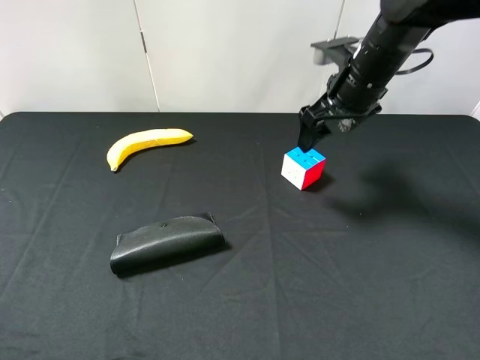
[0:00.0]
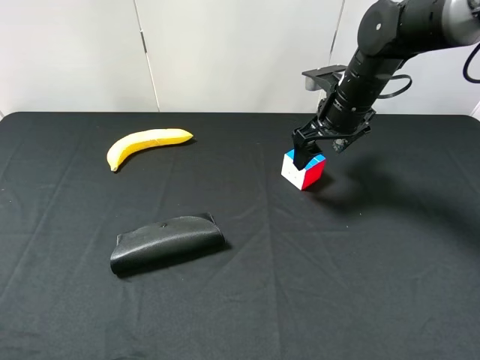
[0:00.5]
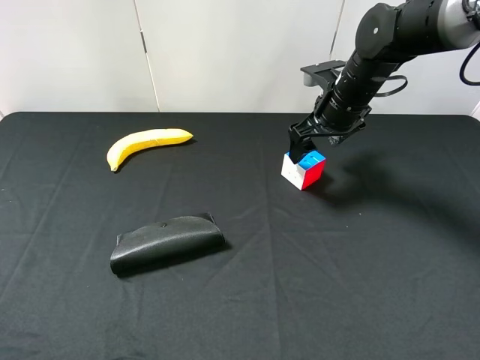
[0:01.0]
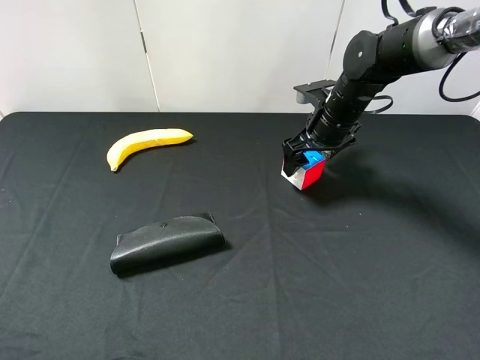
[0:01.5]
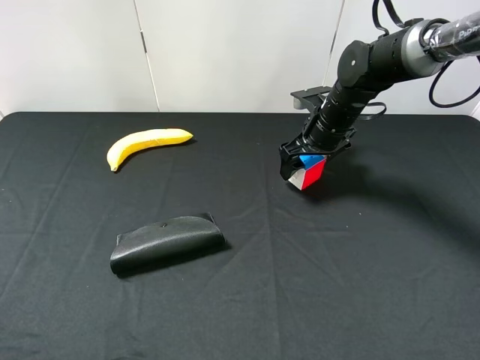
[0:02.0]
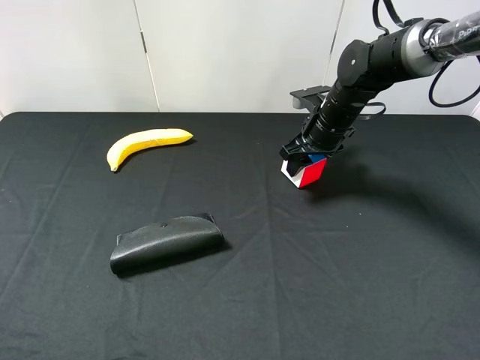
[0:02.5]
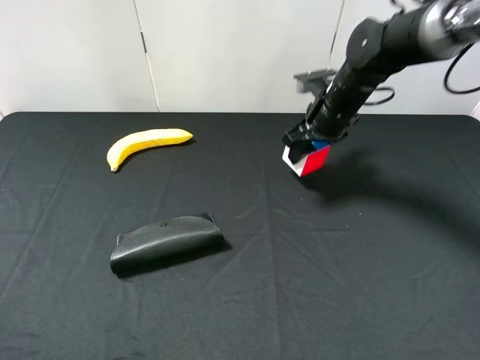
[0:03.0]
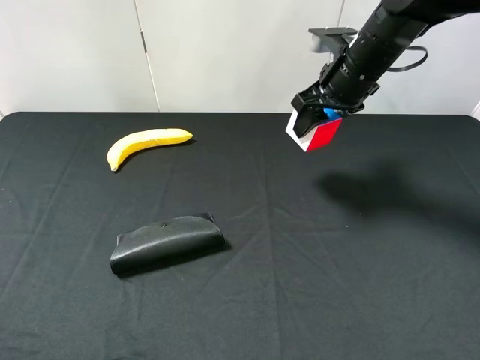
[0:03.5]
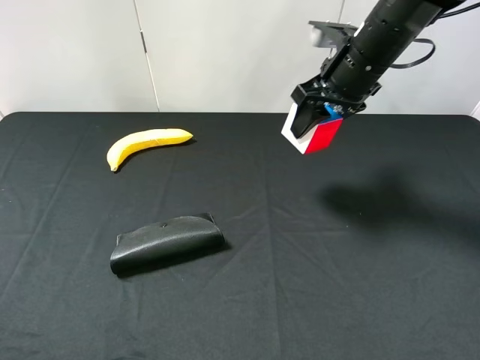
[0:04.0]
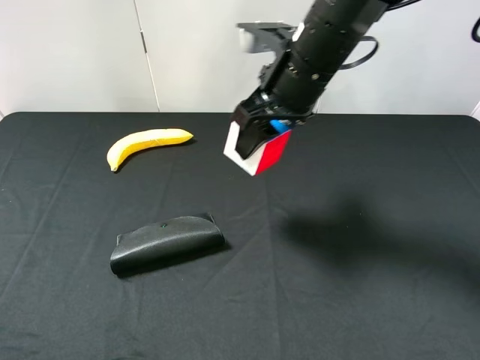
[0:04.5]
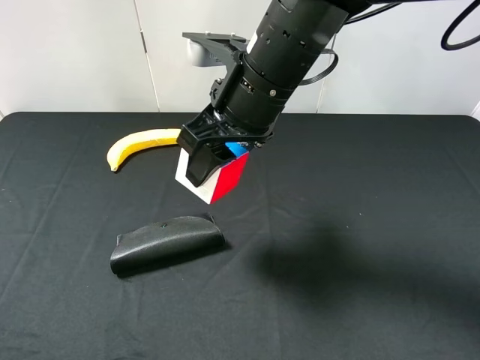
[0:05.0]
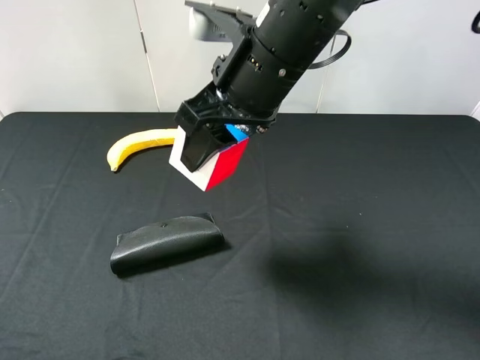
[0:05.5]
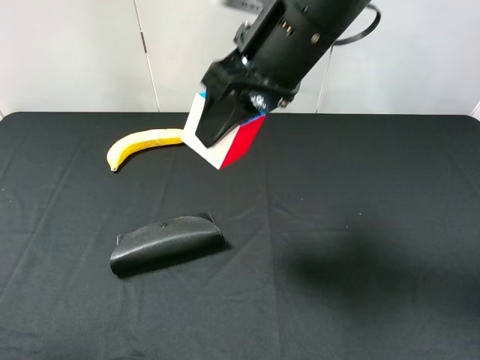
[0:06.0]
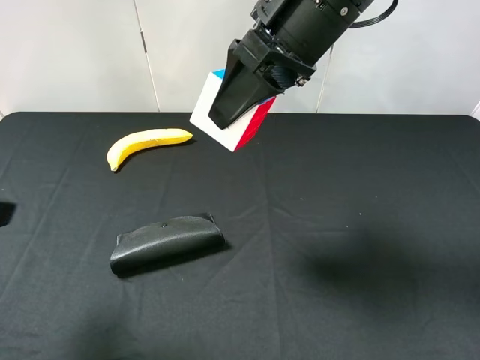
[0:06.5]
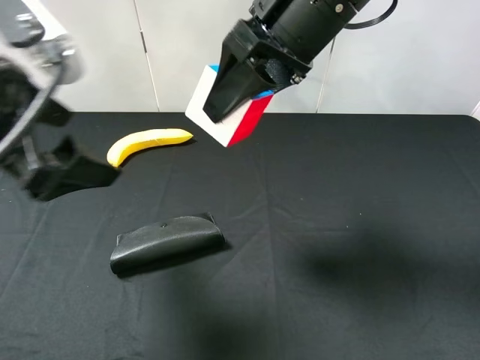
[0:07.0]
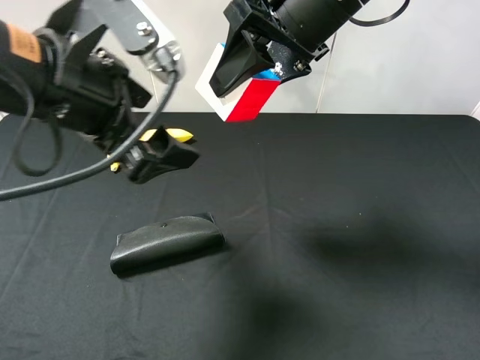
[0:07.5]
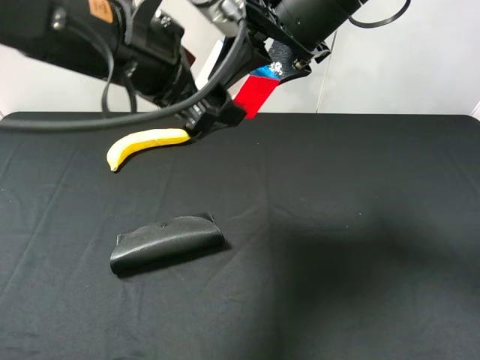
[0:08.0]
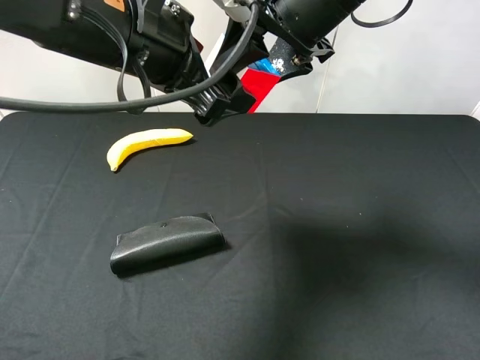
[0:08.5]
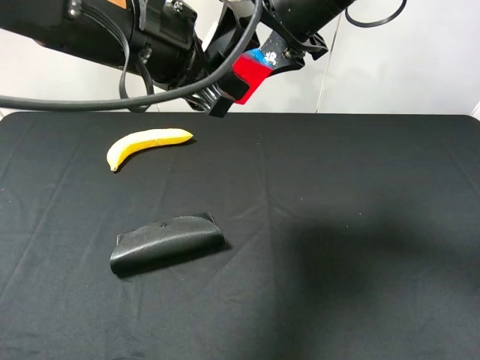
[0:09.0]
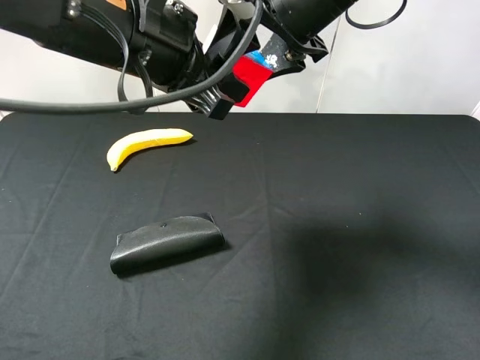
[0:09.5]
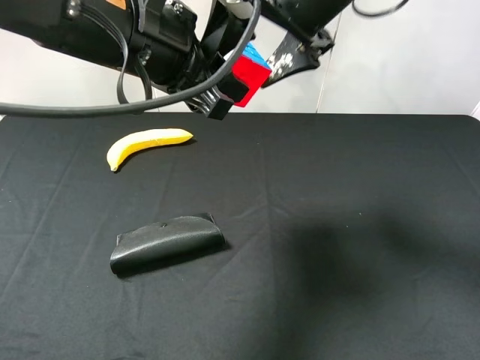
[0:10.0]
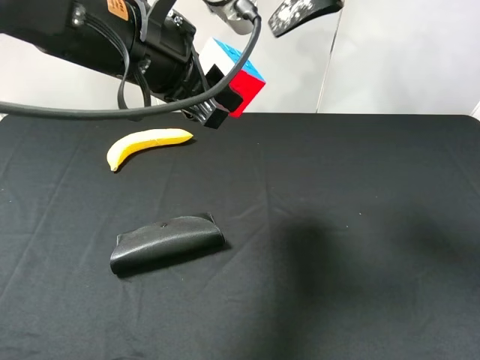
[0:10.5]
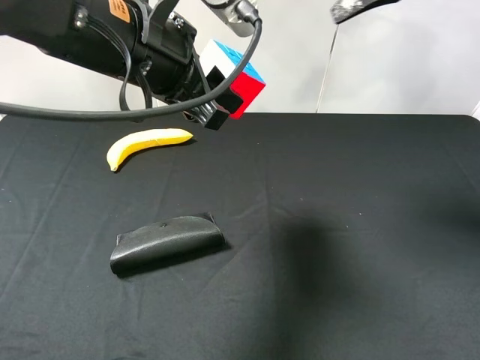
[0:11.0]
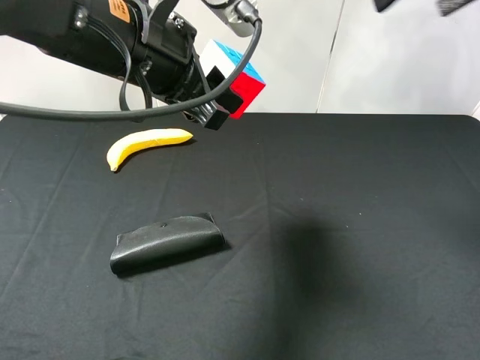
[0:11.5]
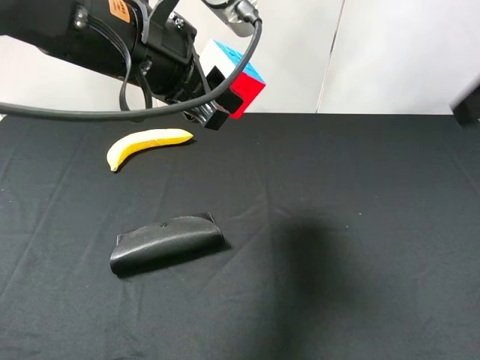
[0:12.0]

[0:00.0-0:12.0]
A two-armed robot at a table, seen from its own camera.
Task of the whole recording: use the right gripper to pick up the item and transfer it from the right gripper to the left gripper.
Step, 0:00.0 to 0:02.5: Use the right gripper to grab the Rubik's Cube on the right side of the table.
Step, 0:03.0 to 0:10.5: Pass the Rubik's Cube to the left gripper.
0:00.0 to 0:02.0: The right gripper shifts some 10 cm downward.
0:02.0 to 0:04.0: The right gripper is displaced upward and backward by about 15 cm, and closes up.
0:04.0 to 0:06.0: The right gripper goes roughly 15 cm backward, to the left and upward, while the left gripper travels forward by approximately 5 cm.
0:06.0 to 0:08.0: The left gripper shifts some 25 cm to the right and forward.
0:08.0 to 0:10.0: The right gripper opens, while the left gripper closes up.
0:10.0 to 0:12.0: The right gripper goes roughly 20 cm to the right and backward.

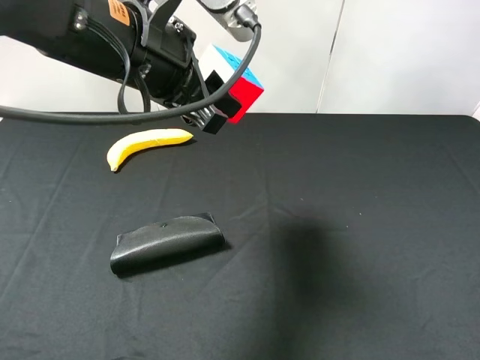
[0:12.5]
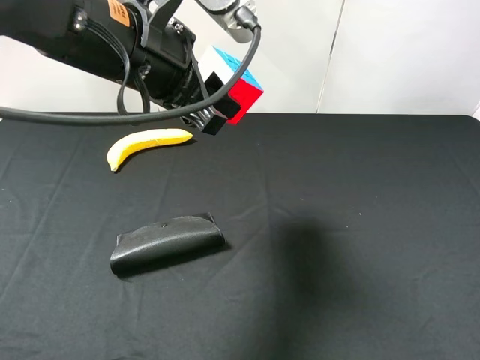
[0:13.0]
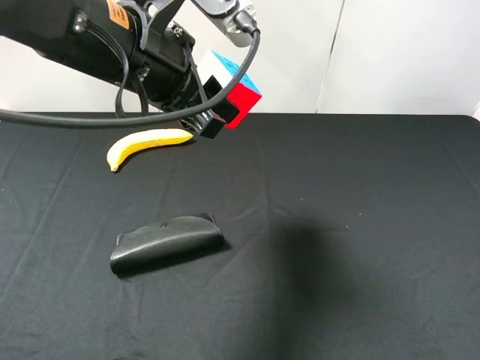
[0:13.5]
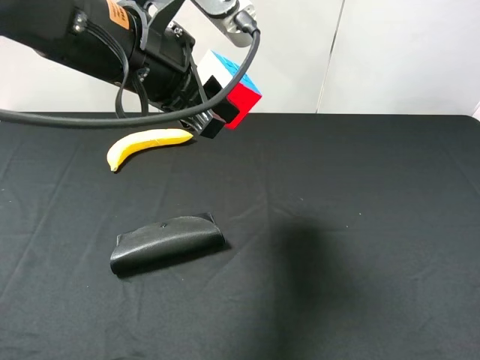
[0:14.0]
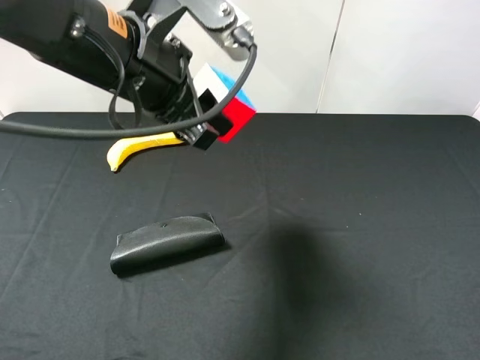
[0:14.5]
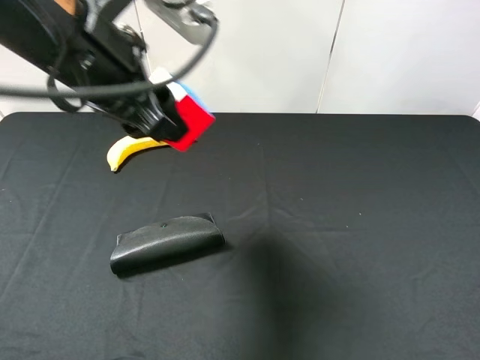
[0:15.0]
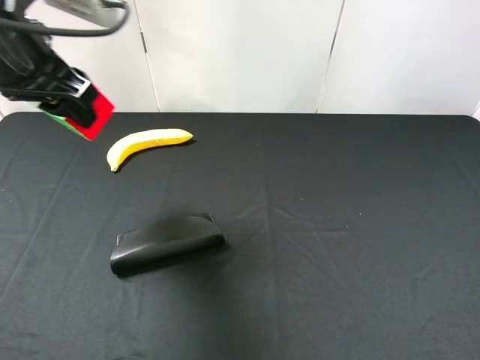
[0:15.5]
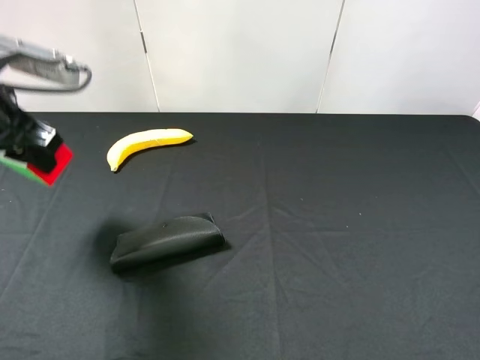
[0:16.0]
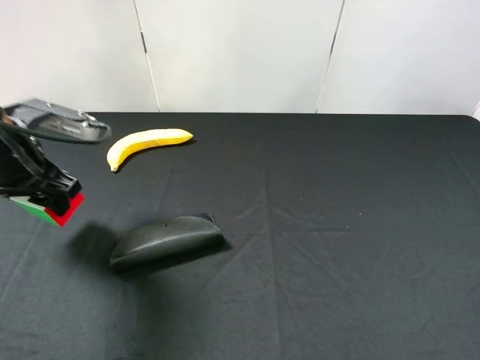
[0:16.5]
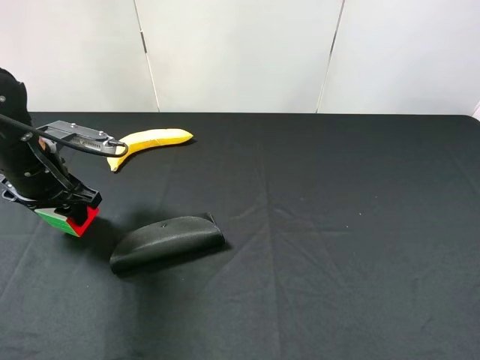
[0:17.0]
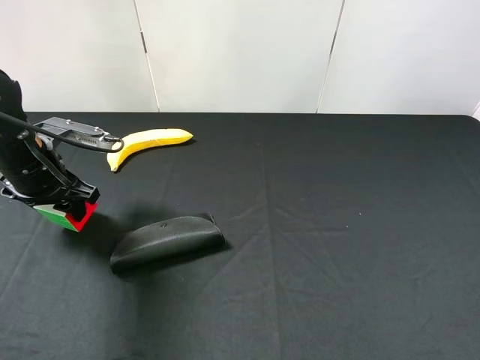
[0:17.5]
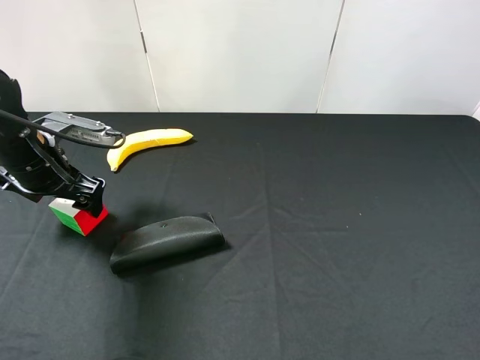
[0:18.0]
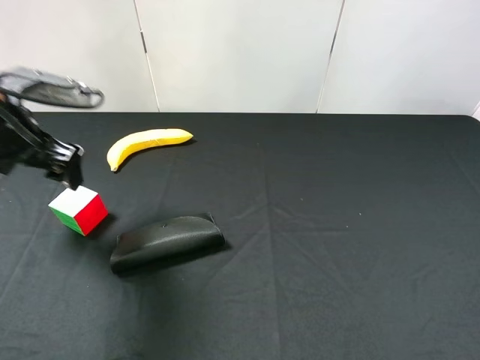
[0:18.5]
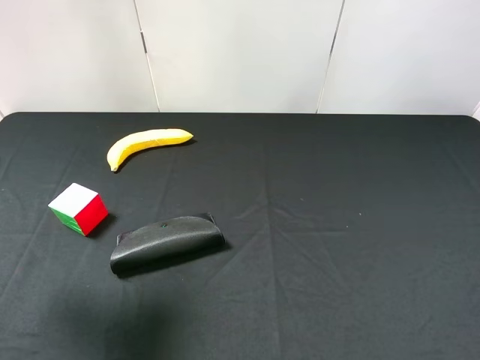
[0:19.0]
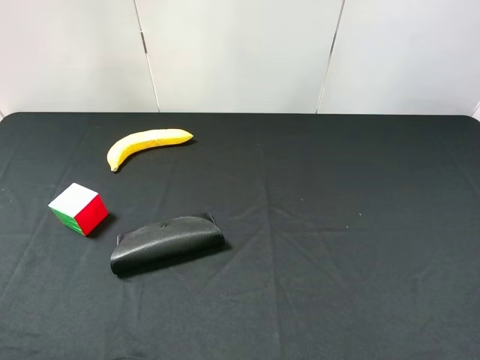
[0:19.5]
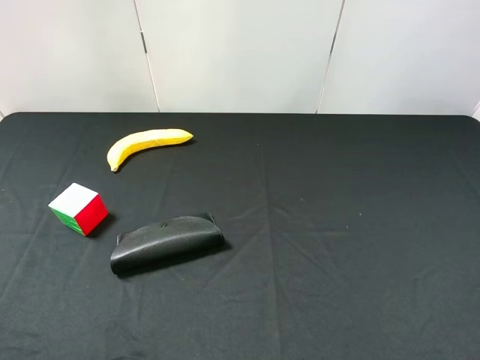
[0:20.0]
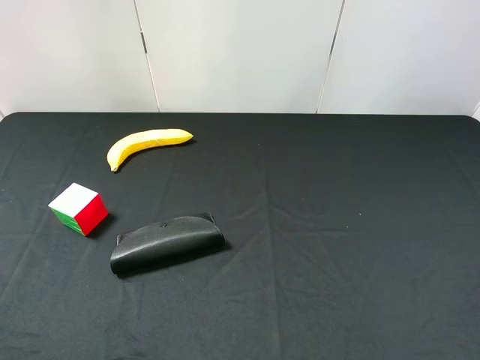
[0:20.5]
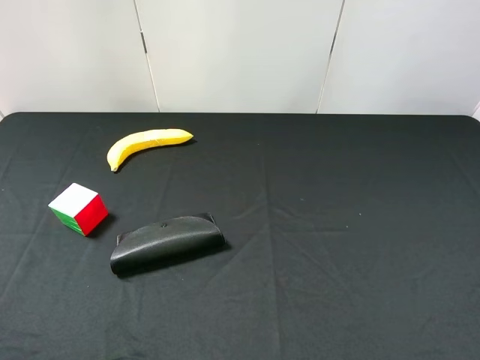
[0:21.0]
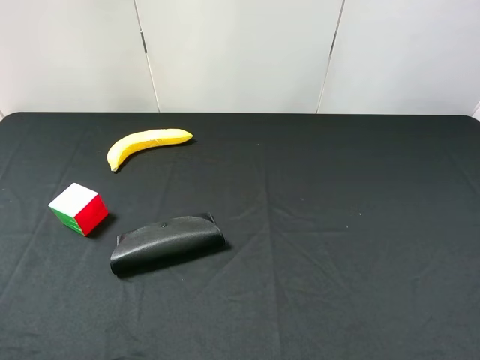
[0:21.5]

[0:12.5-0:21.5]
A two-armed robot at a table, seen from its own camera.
Task of the whole recording: use the right gripper to pick up the item and transfer it from the right gripper to the left gripper.
Step, 0:12.5 to 0:17.5: The left gripper places milk on the left side of the table.
0:12.5 to 0:14.5: The right gripper travels downward by about 5 cm.
0:14.5 to 0:17.0: The left gripper shifts about 20 cm to the left and downward.
0:17.0 to 0:19.5: The left gripper shifts about 30 cm backward and upward, and opens up.
